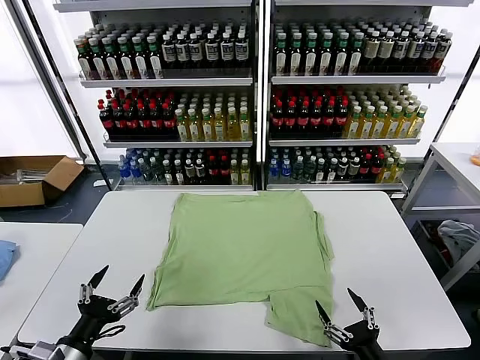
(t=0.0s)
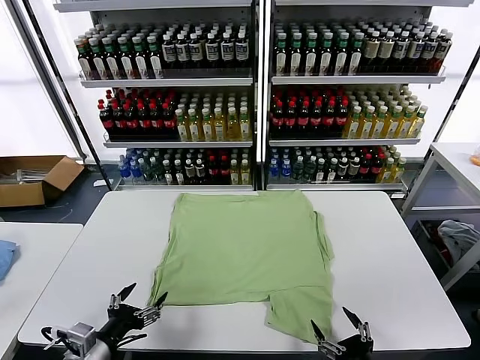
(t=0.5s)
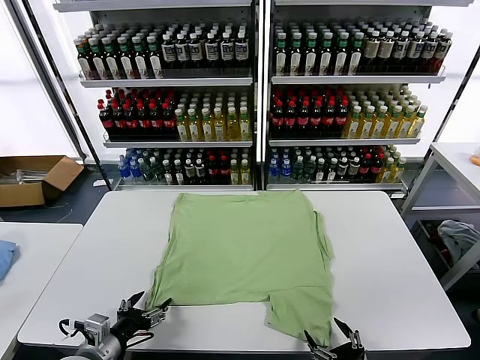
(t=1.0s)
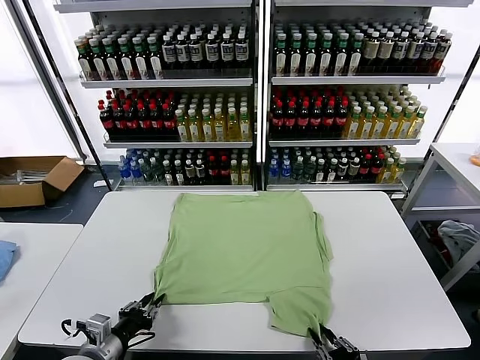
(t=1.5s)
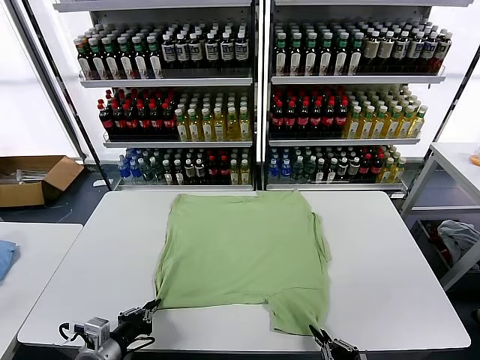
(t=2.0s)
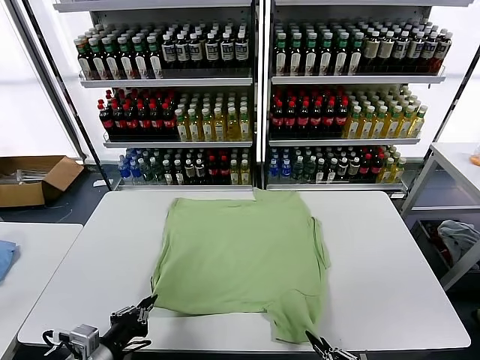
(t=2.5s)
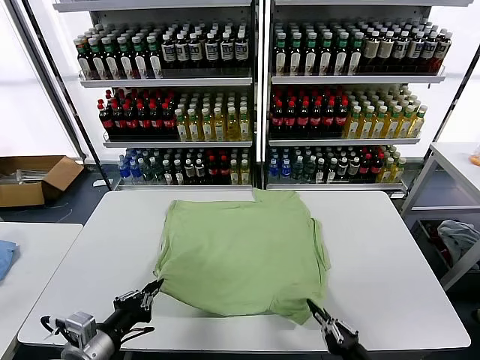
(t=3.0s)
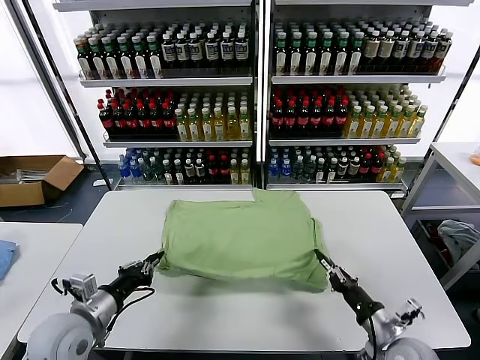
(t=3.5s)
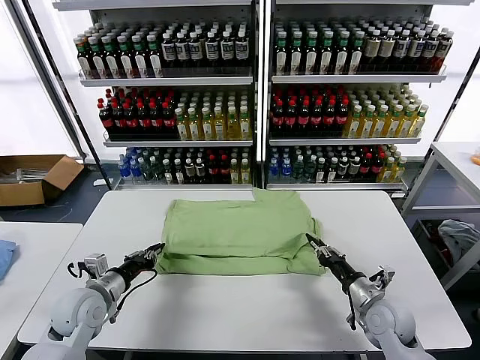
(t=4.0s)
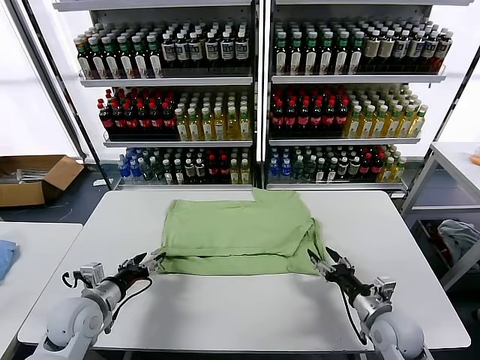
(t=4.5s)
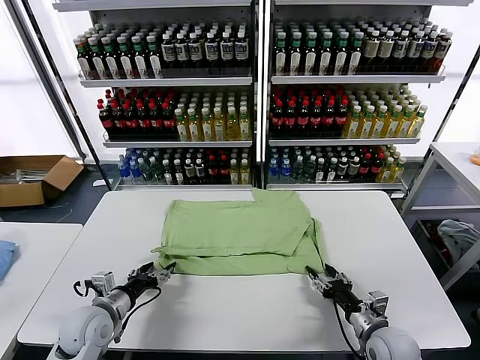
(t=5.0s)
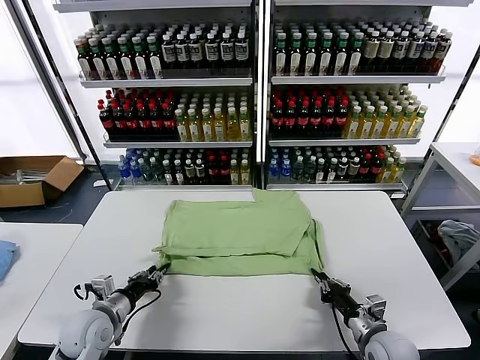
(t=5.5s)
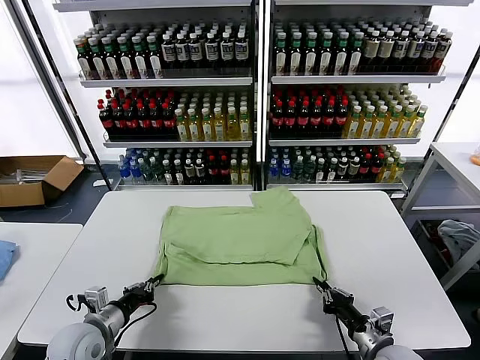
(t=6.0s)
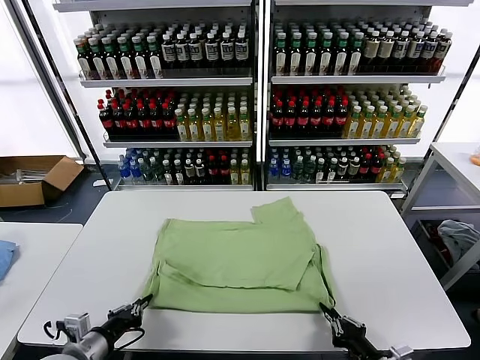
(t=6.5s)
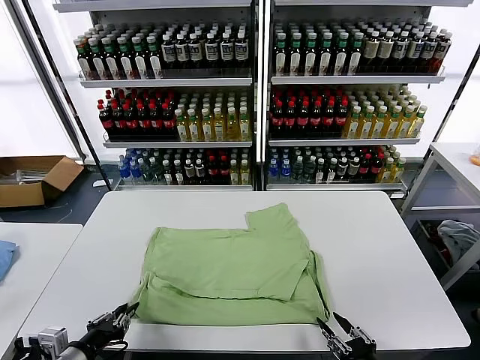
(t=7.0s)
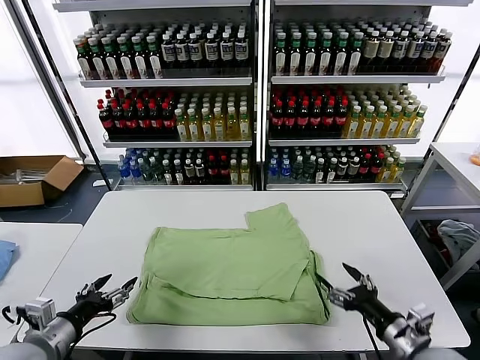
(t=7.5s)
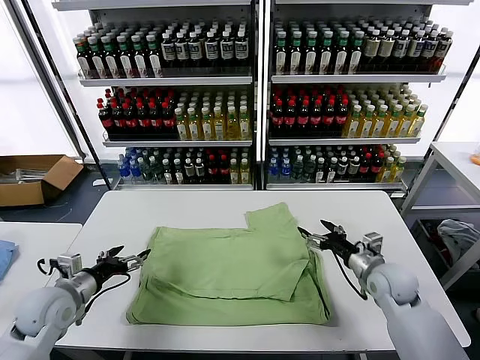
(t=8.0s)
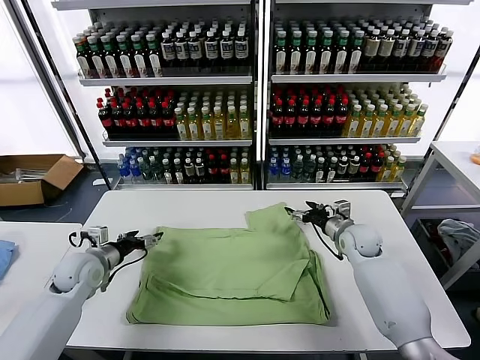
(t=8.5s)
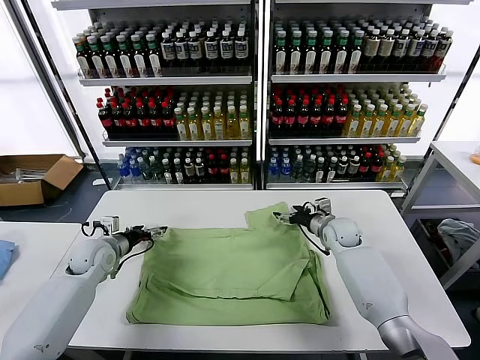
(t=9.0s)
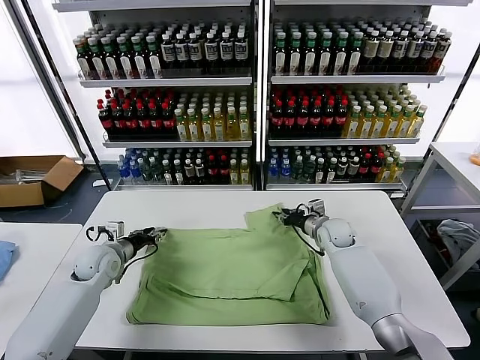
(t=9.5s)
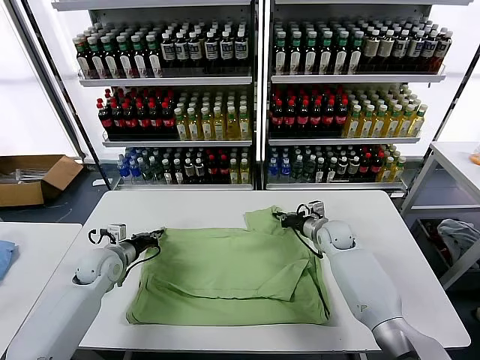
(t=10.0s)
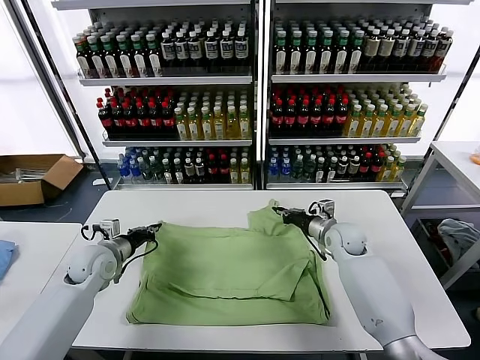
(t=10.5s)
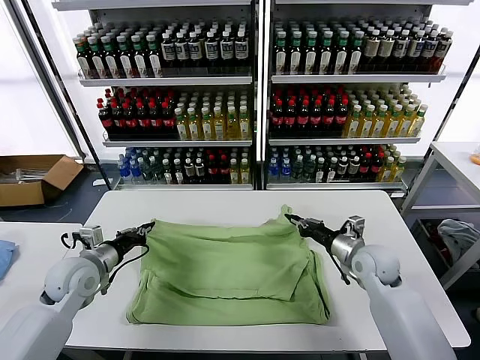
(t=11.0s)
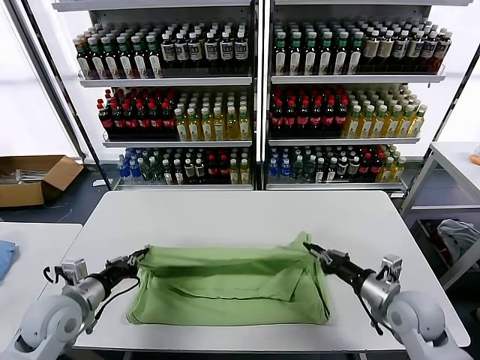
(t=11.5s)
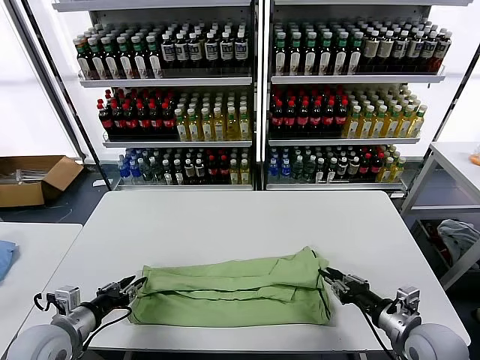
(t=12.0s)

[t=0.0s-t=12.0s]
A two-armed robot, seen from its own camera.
Task of the whole recording: fold and organize the clothes.
Step, t=0.0s to t=1.5s: use both grippers simultaneously to clamp the lower edge of the clothing fabric.
Step, t=2.0s to t=4.5s: use both grippers to drag the lower edge of the fabric forward and fold it over the upper edge.
Step, t=5.0s to t=7.0s: Drag the clothes downward with both gripper.
Step, t=7.5s to t=9.5s: use both grippers simultaneously to clamp the upper edge of the clothing fabric.
t=2.0s to t=4.0s: The right gripper heads forward, covering some 25 cm, and opens its fingers; the left gripper moves forward, roughly 15 cm.
t=4.0s to t=6.0s: The left gripper moves backward, approximately 5 cm, and opens, then closes again. The right gripper travels backward by roughly 10 cm, and closes.
t=6.0s to t=8.0s: The right gripper is displaced forward by approximately 20 cm, and opens up; the left gripper travels forward, to the left and upward by about 10 cm, and opens its fingers.
t=8.0s to t=10.0s: The left gripper is displaced forward by approximately 10 cm, and closes its fingers. The right gripper travels forward and to the left by some 15 cm, and closes its fingers.
t=10.0s to t=12.0s: The left gripper moves backward, about 20 cm, and opens up. Meanwhile the right gripper travels backward by roughly 30 cm, and opens.

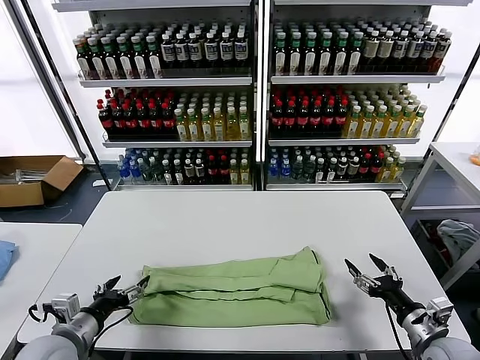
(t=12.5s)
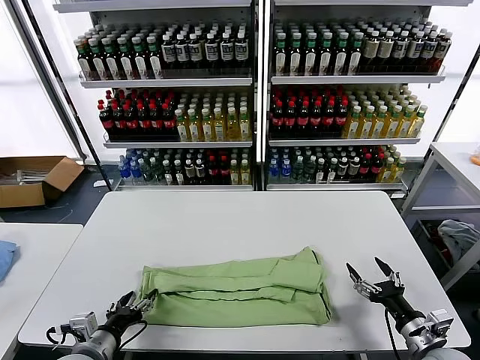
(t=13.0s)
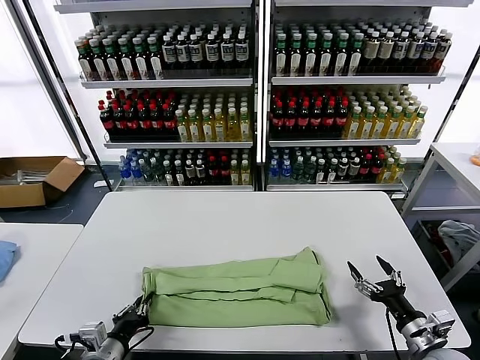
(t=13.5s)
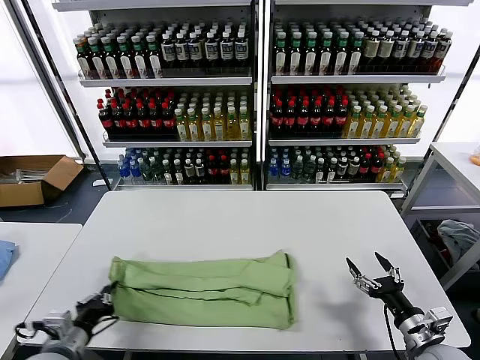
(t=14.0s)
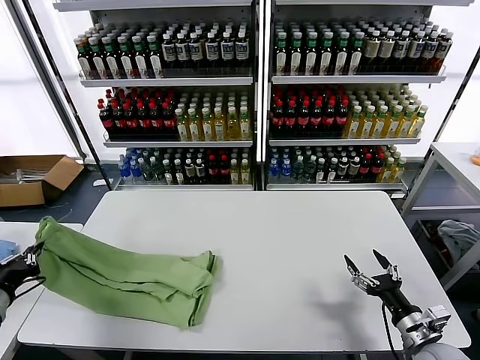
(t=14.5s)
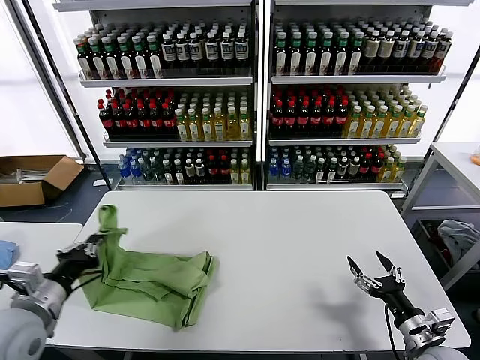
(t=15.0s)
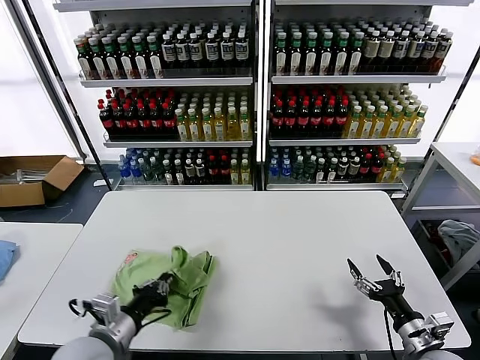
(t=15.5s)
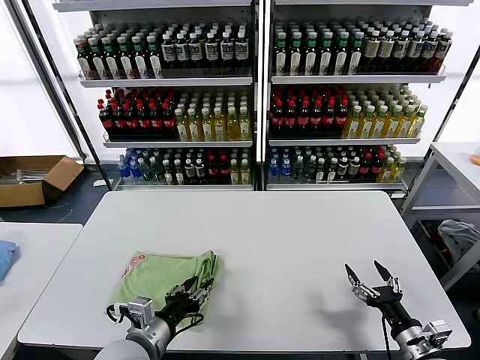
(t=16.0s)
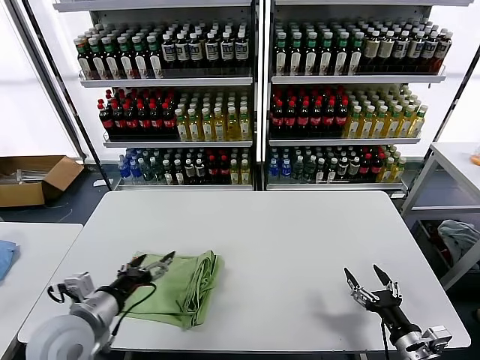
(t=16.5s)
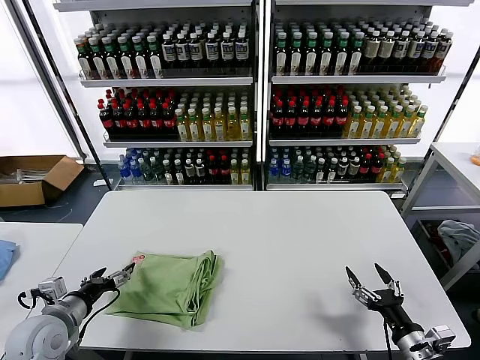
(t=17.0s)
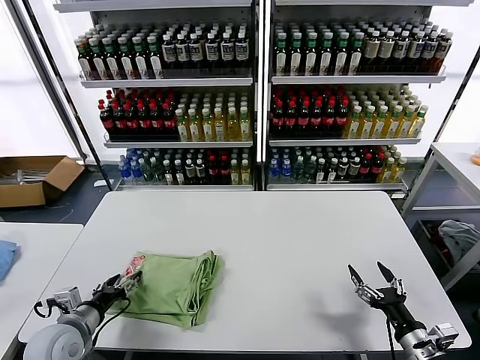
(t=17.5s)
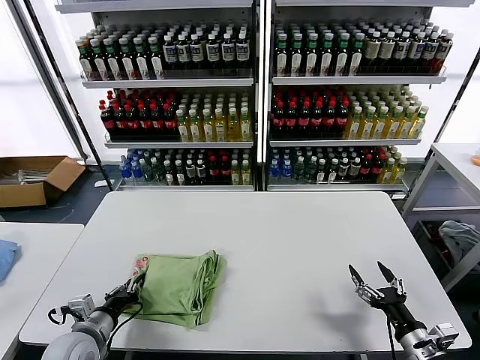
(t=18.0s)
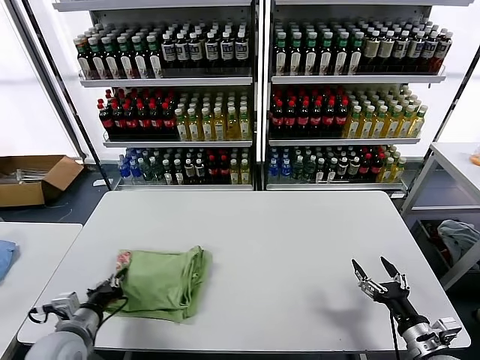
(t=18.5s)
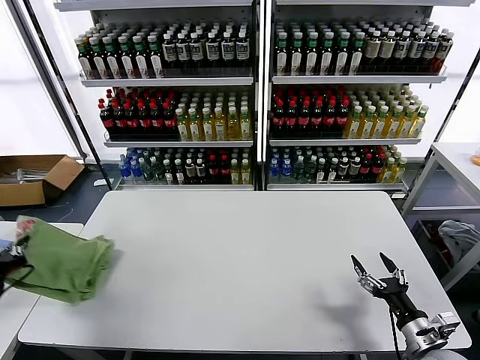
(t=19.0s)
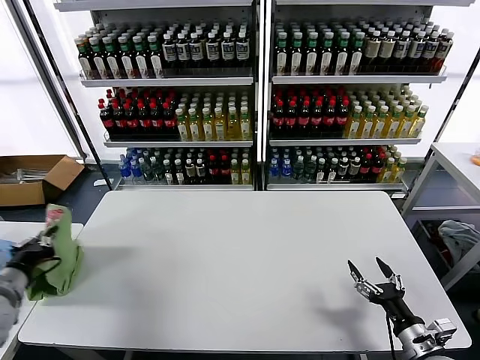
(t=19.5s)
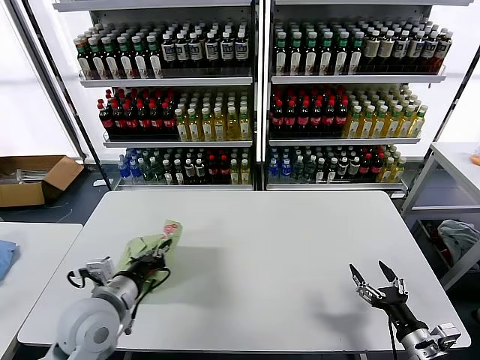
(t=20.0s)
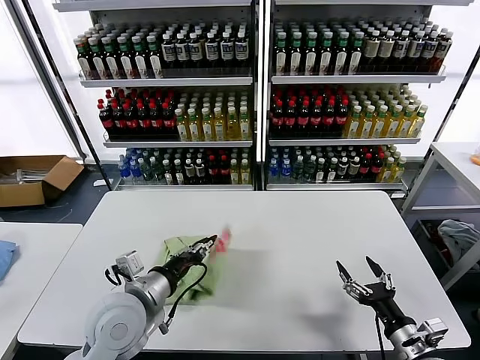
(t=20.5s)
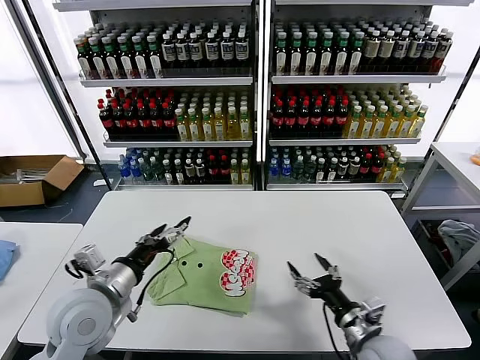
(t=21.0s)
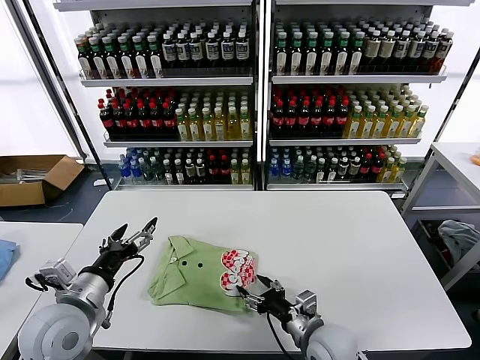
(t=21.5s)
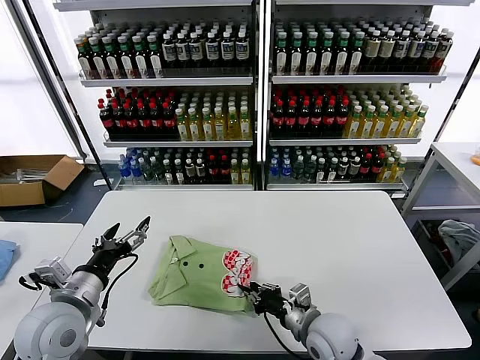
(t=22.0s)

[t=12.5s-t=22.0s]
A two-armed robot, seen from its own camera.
Task of the whole recording: fold and organize the clothes.
Step, t=12.5s to t=13.5s: use the left gripper to clamp the left edge of the fabric.
Step, t=14.0s to t=16.0s: use the left gripper to drag the left edge of the fabric to the left and folds it over the right edge.
Step, t=16.5s to t=20.5s: Flip the folded clothes over with left gripper.
t=12.5s to t=14.5s: The left gripper goes approximately 15 cm to the left and upward, and closes its fingers.
t=14.5s to t=16.5s: The left gripper moves to the right, about 20 cm, and opens.
t=16.5s to t=18.0s: The left gripper goes roughly 10 cm downward, and closes up.
t=18.0s to t=20.0s: The left gripper travels upward by approximately 10 cm, and moves roughly 15 cm to the left and comes back.
t=20.0s to t=22.0s: The left gripper opens its fingers; the right gripper is displaced to the left and forward by some 25 cm, and closes its fingers.

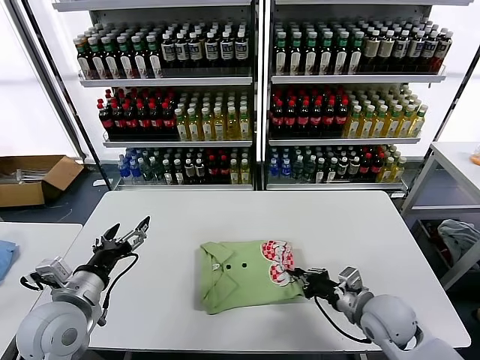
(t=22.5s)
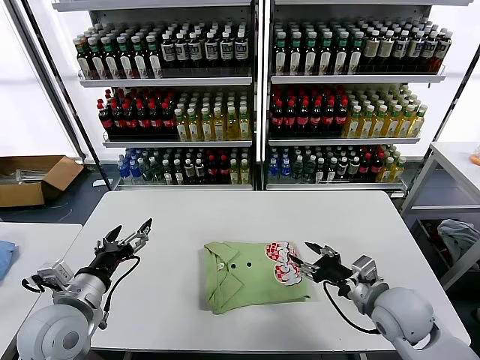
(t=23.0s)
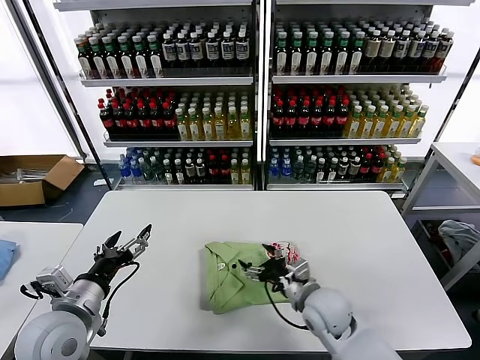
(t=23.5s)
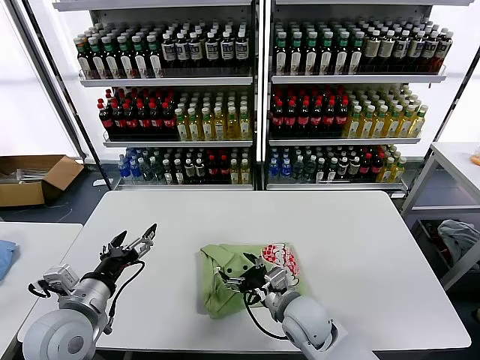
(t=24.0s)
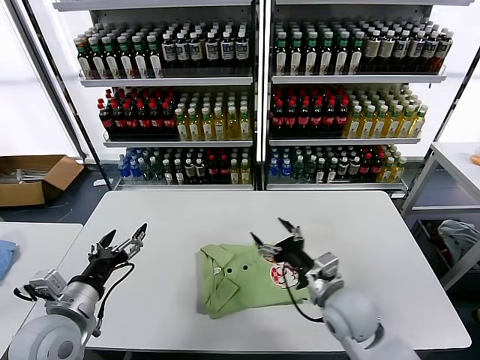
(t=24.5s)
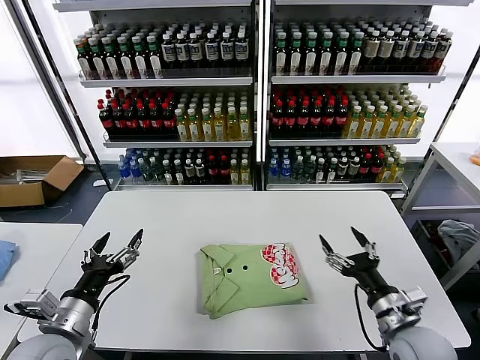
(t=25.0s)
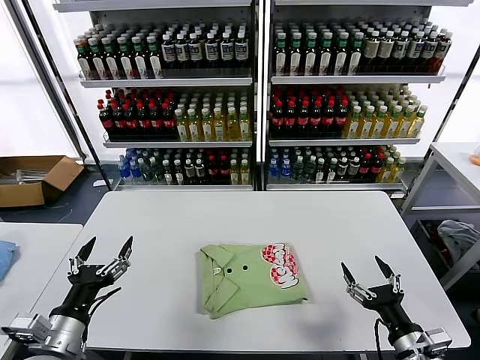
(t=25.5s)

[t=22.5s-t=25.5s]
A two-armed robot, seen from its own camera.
Task of the whole recording: fold and organize the clothes.
t=22.5s to t=24.0s: The right gripper moves to the left, about 15 cm, and opens.
t=24.0s to t=25.5s: The left gripper travels backward by about 5 cm; the right gripper travels to the right and backward by approximately 25 cm.
